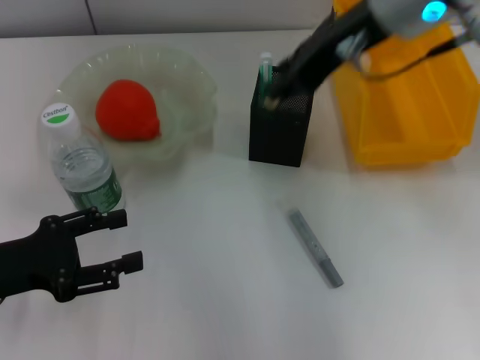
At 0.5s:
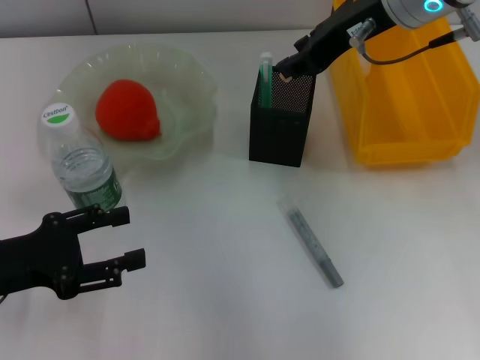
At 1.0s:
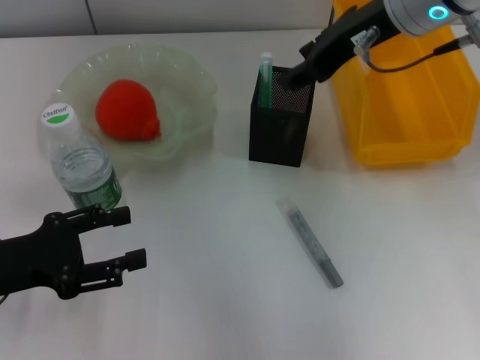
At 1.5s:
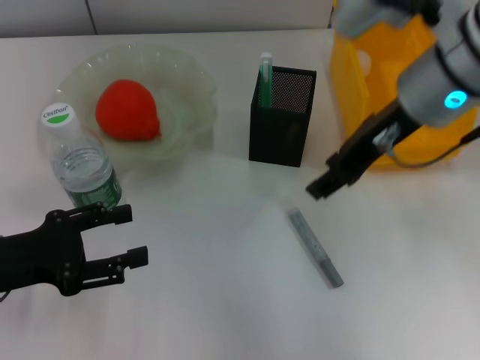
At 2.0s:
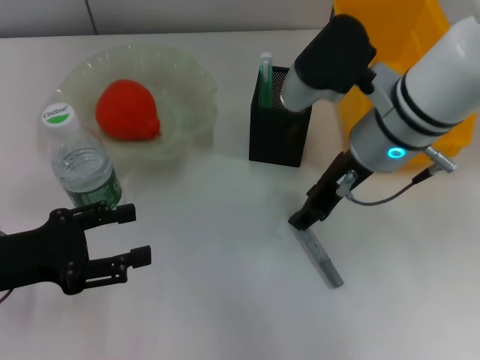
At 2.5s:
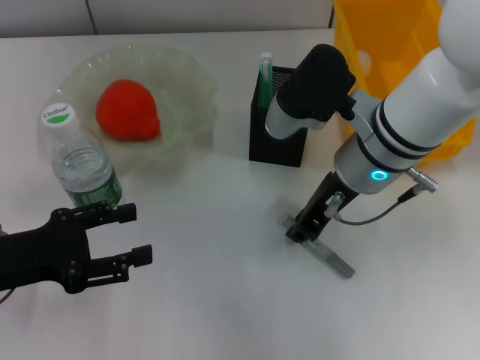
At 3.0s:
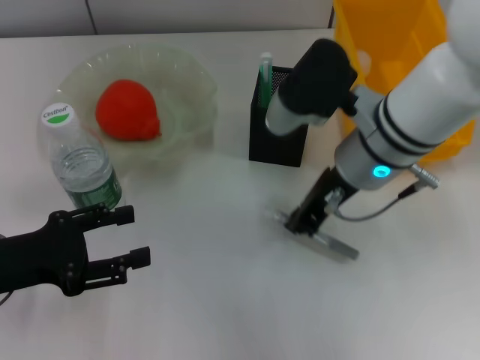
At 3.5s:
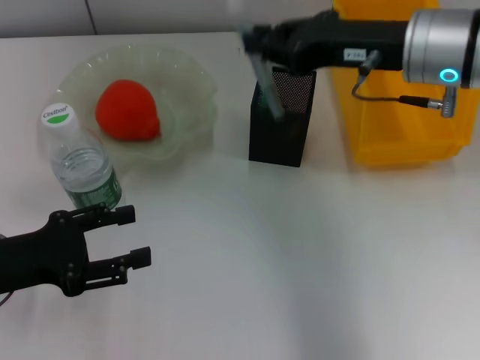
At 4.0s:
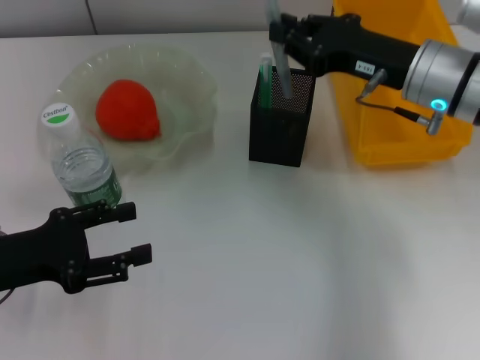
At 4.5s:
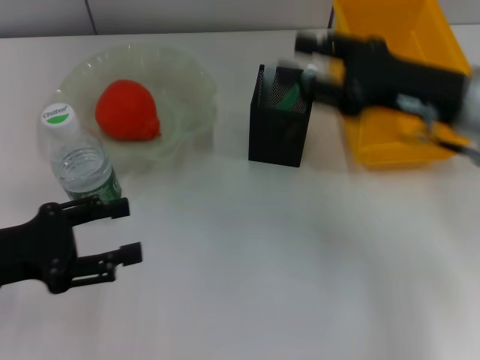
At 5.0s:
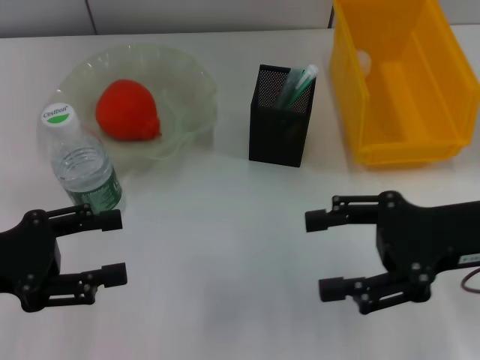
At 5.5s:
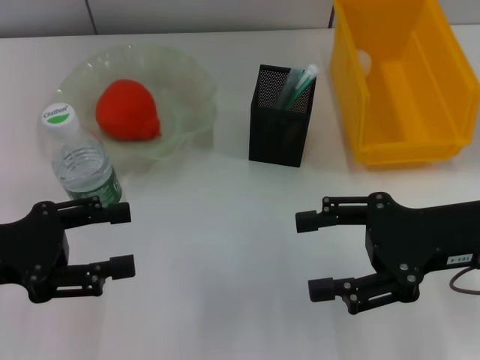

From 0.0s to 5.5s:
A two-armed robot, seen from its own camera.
Step, from 0.0s to 1.0s: Put the eraser into the pen holder with the right hand.
Step, from 1.5s to 2.5s: Grab the gray glue with the right hand.
Step, from 3.0s to 4.5s: Place the gray glue into the pen holder with the right hand.
From 0.0s to 2.0s: The right gripper moves downward, some 10 cm.
From 2.0s to 3.5s: The right gripper goes about 5 cm to the right, and closes.
From 3.5s to 5.5s: The right gripper travels backward, downward and to the right by some 15 cm, and opens up.
